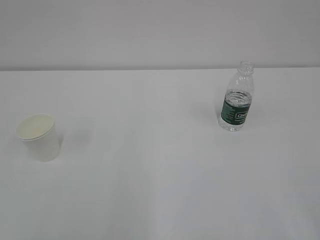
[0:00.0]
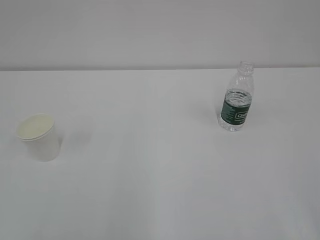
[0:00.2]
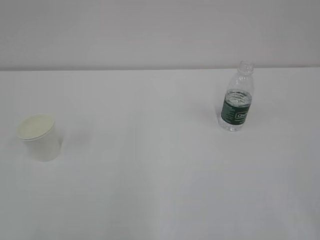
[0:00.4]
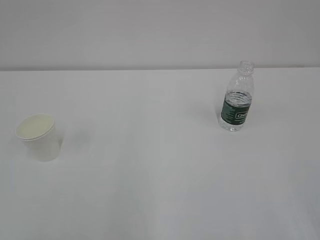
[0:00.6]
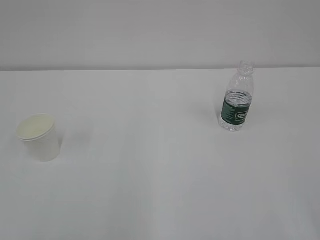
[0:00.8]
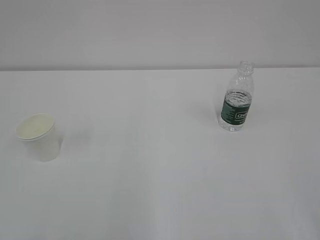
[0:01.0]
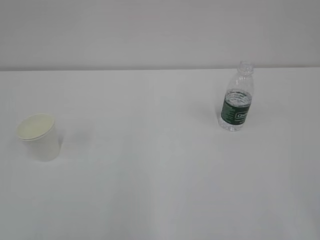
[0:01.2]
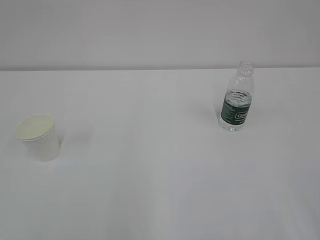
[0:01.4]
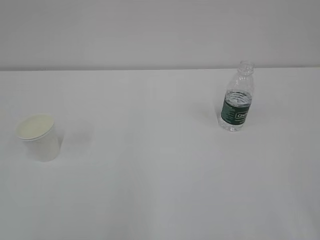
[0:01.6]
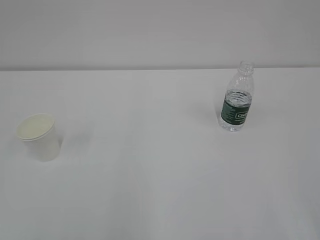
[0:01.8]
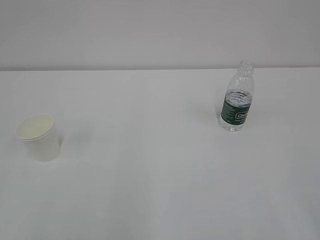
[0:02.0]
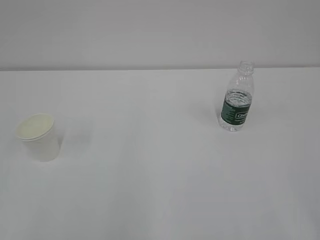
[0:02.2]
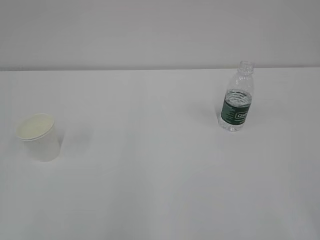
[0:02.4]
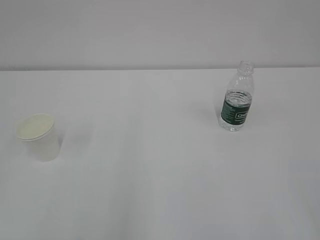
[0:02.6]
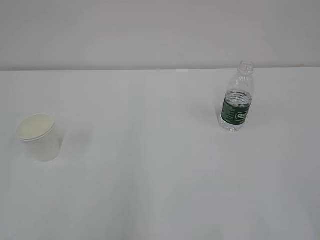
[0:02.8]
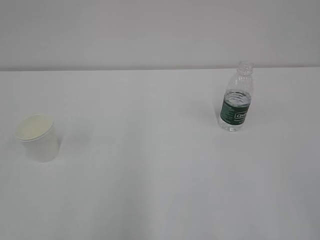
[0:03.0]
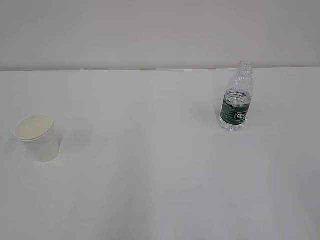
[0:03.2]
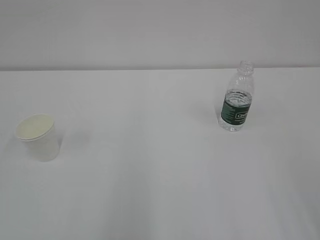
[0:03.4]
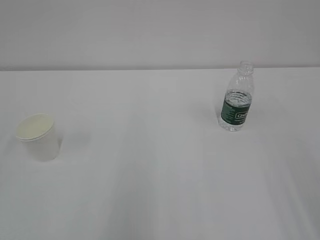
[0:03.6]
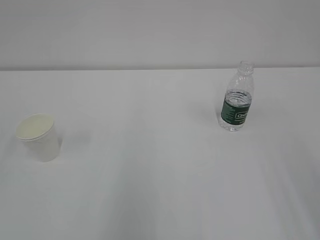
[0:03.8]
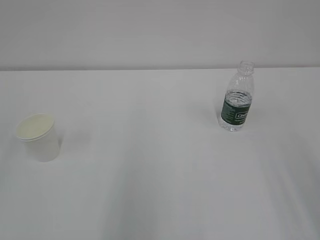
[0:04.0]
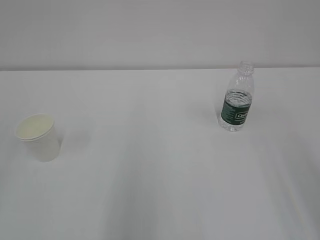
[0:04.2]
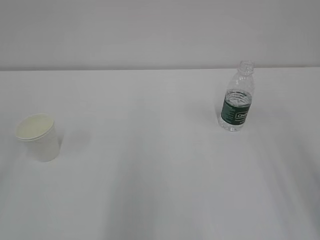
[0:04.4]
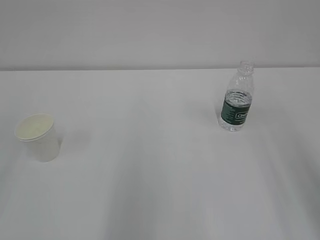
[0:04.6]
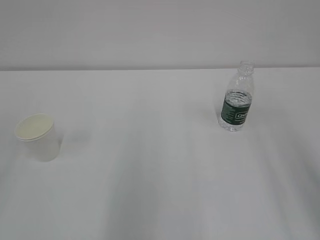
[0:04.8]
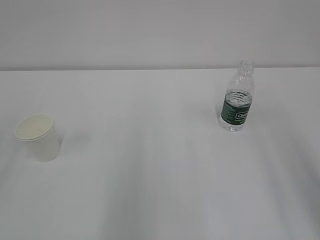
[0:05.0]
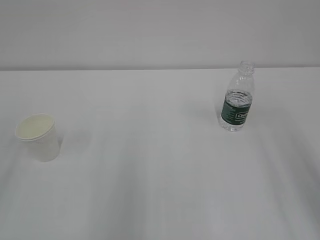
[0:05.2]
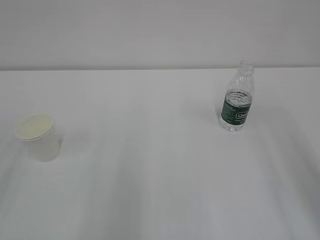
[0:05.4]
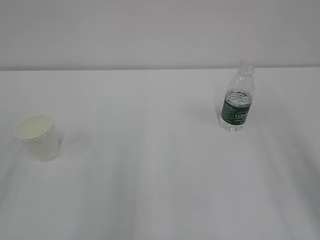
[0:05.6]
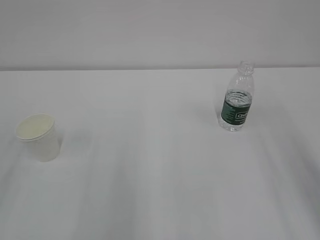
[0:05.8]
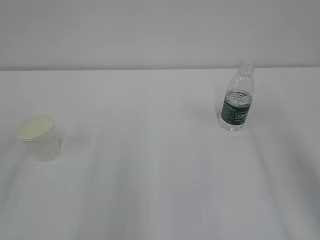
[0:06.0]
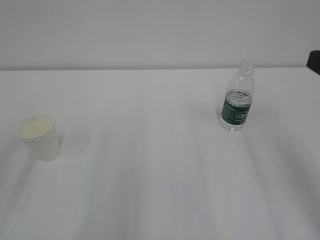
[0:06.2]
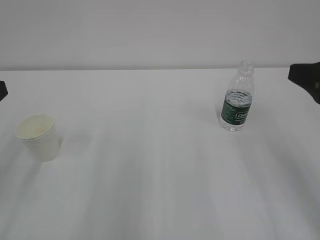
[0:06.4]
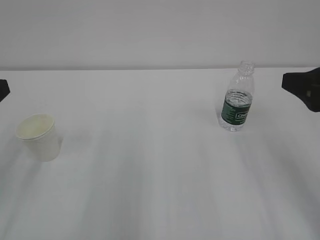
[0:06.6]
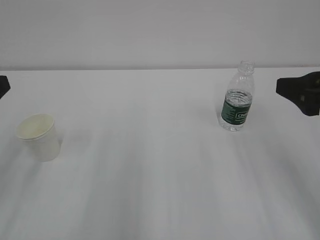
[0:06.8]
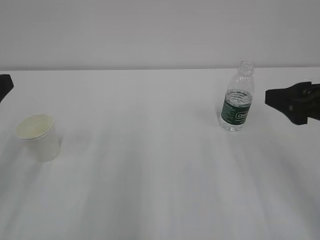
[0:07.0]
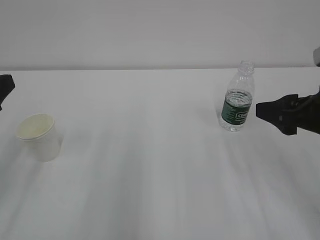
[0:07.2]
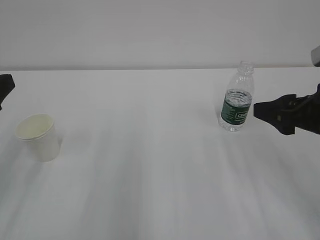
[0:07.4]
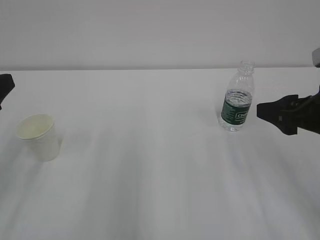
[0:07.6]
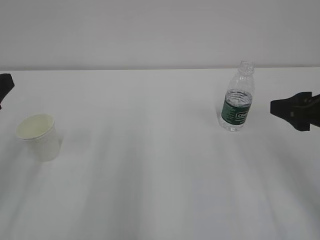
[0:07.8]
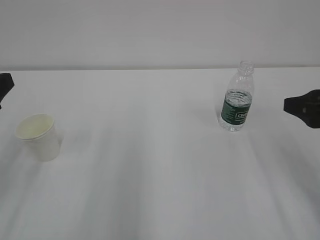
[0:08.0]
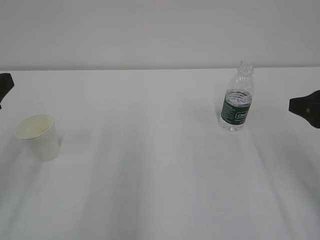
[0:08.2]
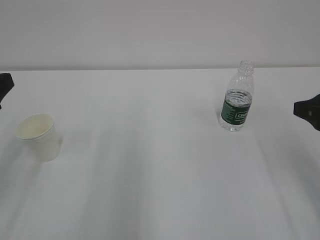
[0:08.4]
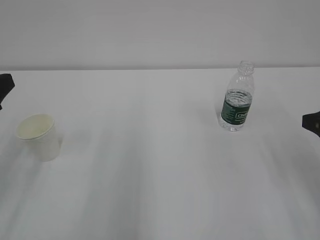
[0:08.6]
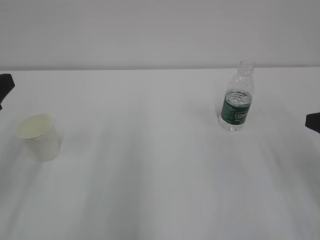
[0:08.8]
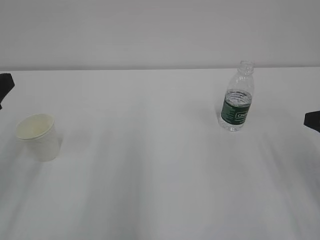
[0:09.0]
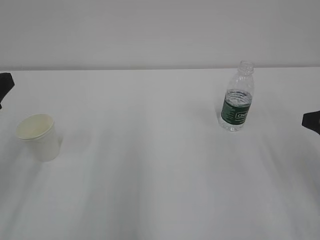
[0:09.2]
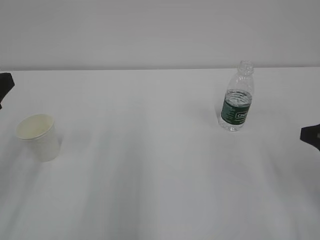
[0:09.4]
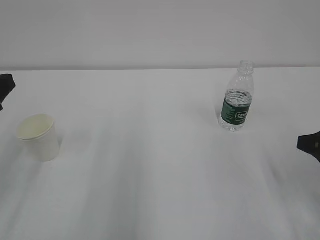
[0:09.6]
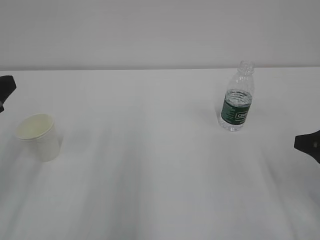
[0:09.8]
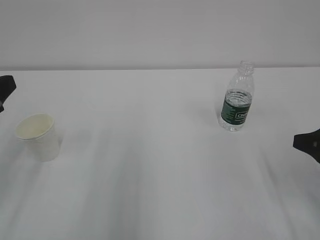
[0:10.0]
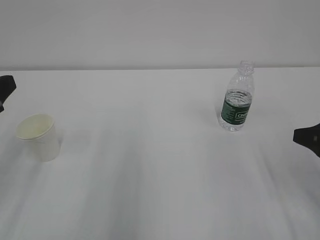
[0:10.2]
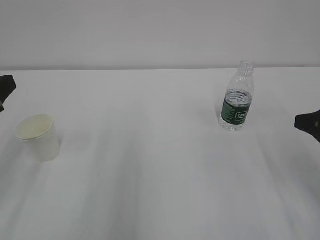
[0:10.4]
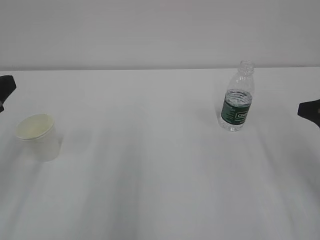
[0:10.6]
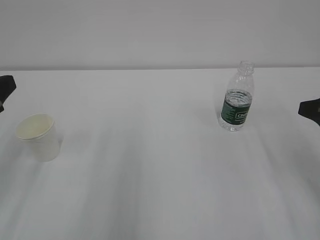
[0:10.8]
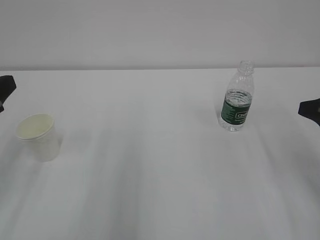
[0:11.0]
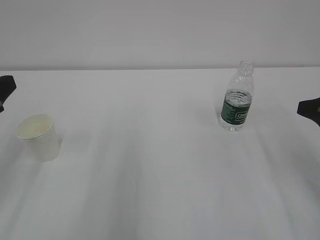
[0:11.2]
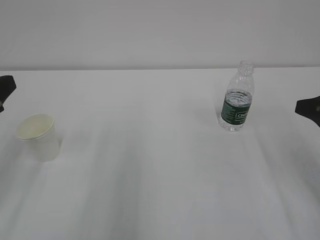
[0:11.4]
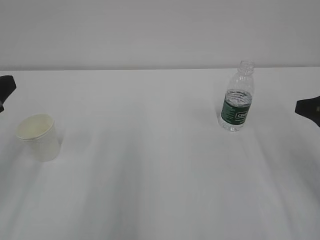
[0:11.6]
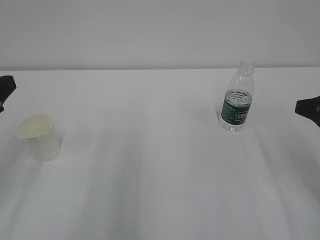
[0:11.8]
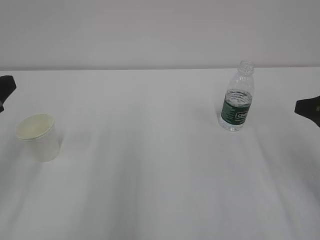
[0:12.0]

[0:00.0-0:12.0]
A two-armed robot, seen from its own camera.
0:06.0 to 0:07.6: The right gripper goes roughly 10 cm downward and forward.
0:07.6 to 0:09.0: The right gripper moves to the right, some 5 cm.
0:10.4 to 0:12.0: The grippers make only small movements.

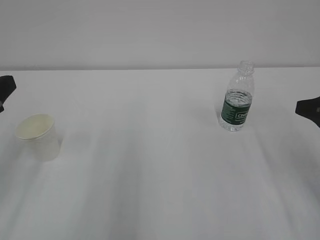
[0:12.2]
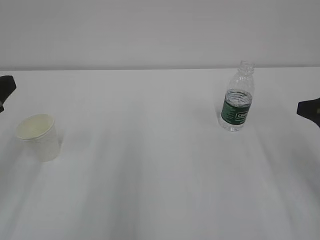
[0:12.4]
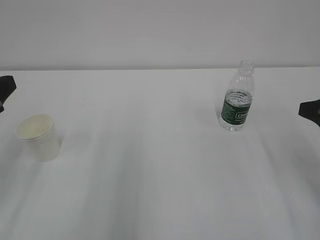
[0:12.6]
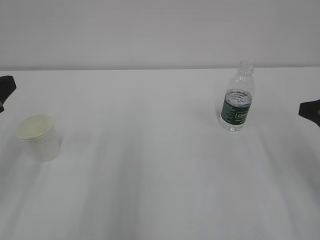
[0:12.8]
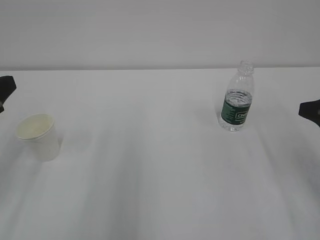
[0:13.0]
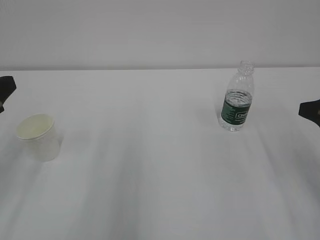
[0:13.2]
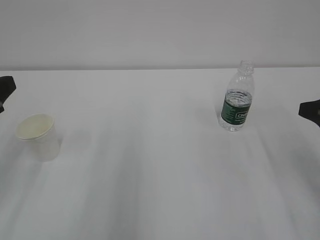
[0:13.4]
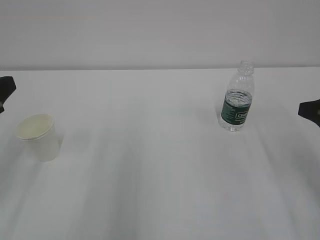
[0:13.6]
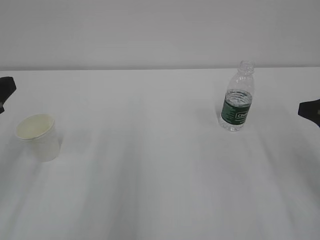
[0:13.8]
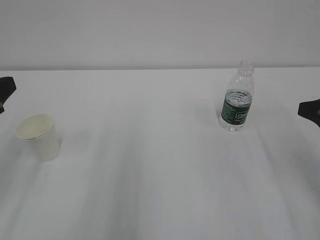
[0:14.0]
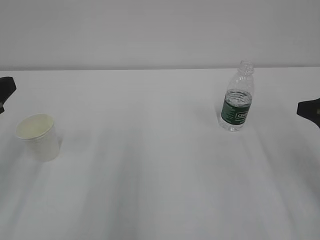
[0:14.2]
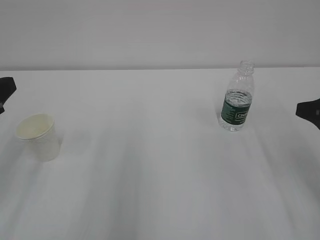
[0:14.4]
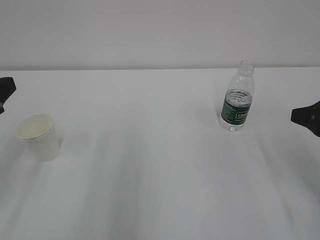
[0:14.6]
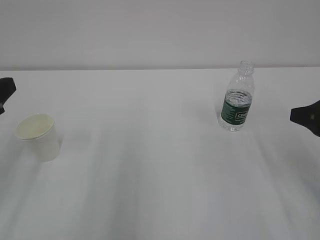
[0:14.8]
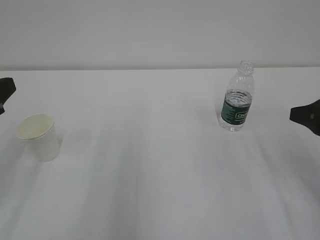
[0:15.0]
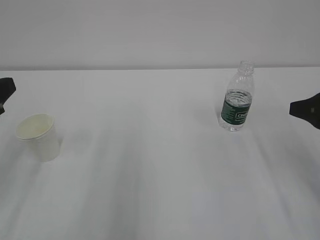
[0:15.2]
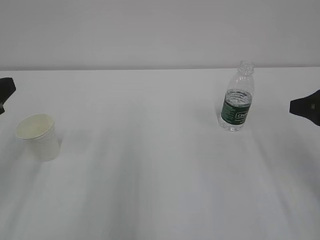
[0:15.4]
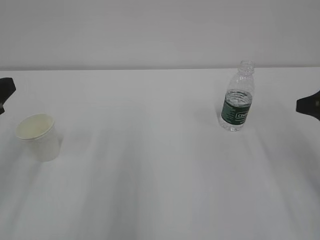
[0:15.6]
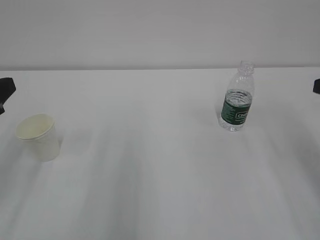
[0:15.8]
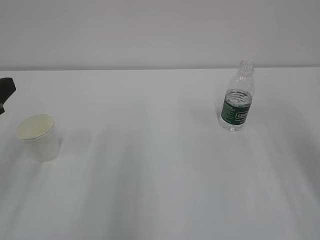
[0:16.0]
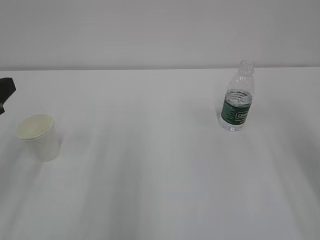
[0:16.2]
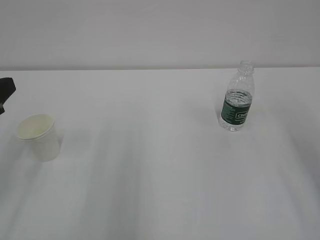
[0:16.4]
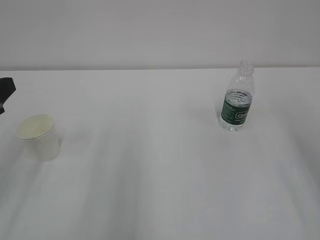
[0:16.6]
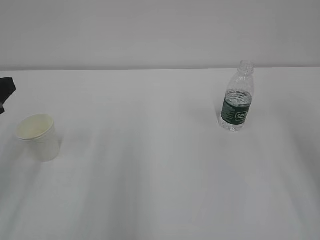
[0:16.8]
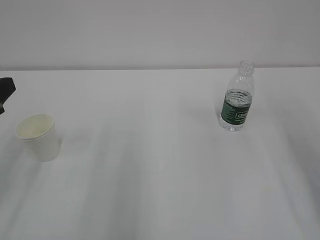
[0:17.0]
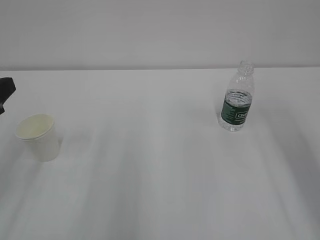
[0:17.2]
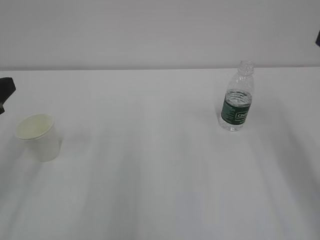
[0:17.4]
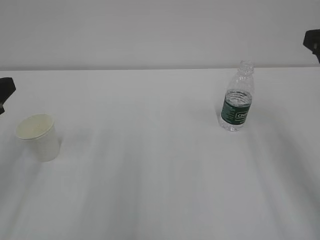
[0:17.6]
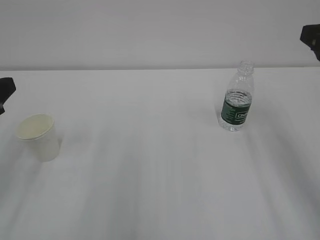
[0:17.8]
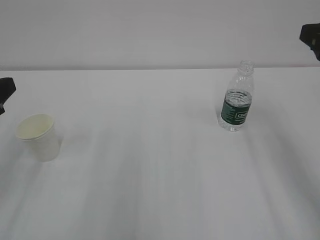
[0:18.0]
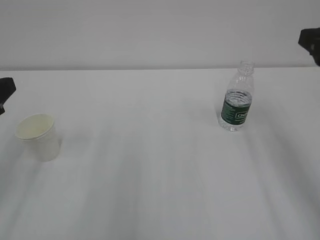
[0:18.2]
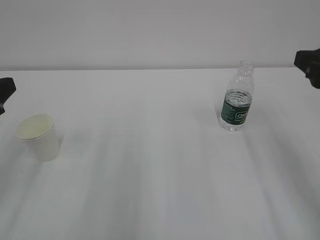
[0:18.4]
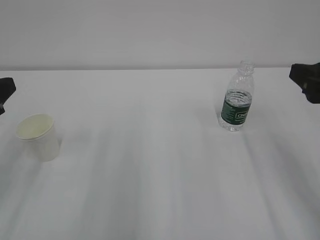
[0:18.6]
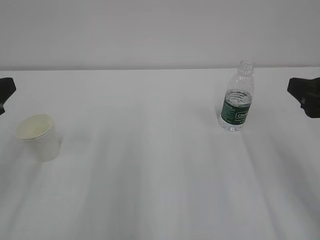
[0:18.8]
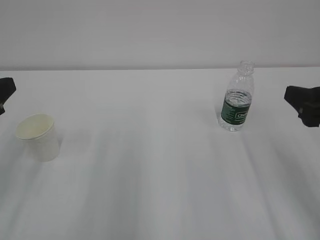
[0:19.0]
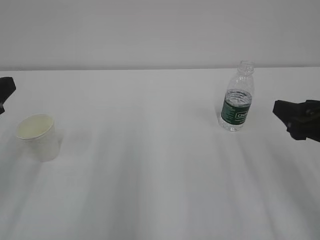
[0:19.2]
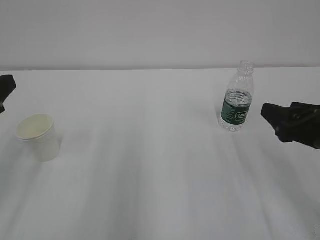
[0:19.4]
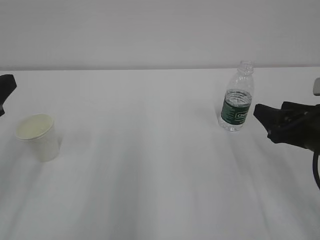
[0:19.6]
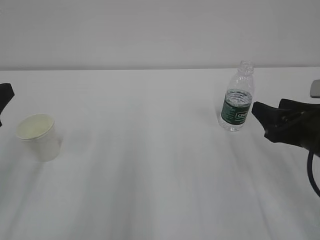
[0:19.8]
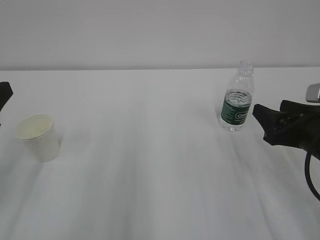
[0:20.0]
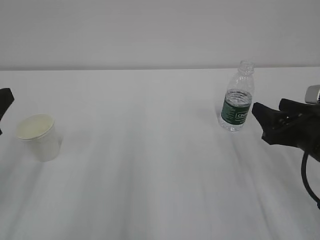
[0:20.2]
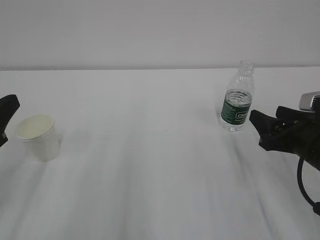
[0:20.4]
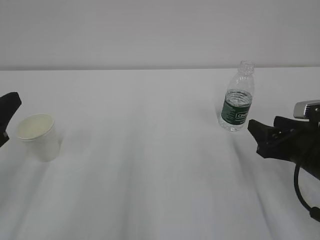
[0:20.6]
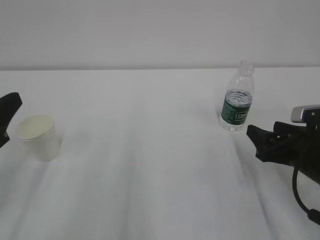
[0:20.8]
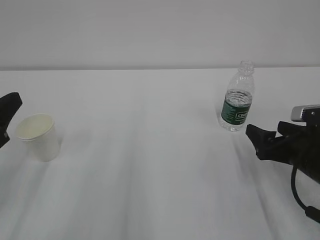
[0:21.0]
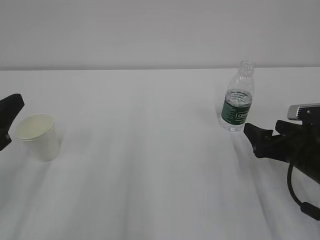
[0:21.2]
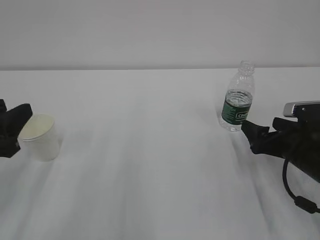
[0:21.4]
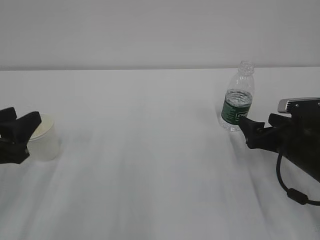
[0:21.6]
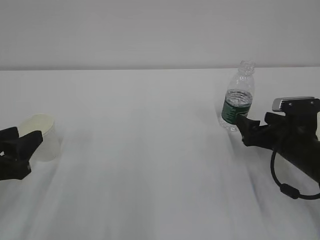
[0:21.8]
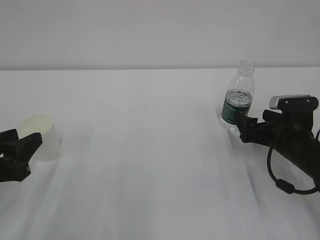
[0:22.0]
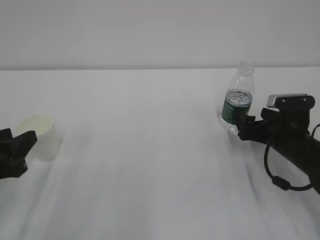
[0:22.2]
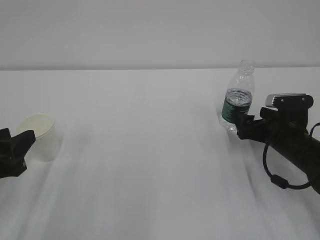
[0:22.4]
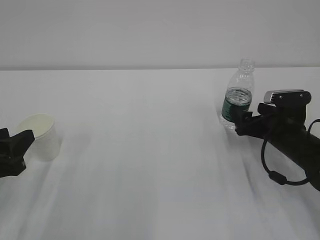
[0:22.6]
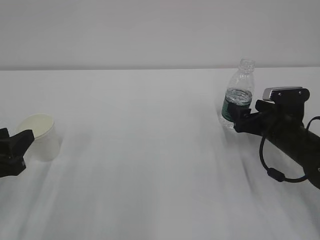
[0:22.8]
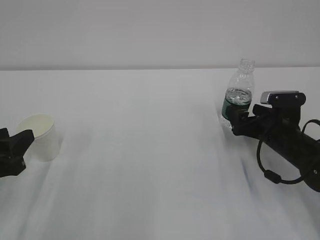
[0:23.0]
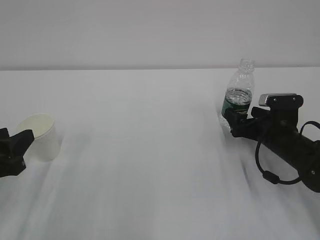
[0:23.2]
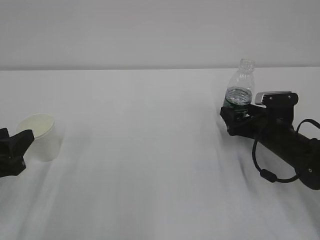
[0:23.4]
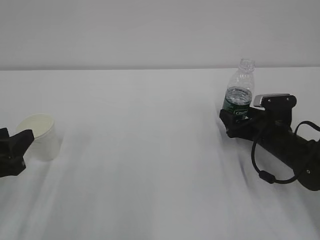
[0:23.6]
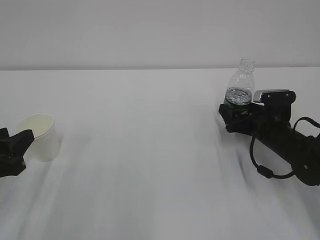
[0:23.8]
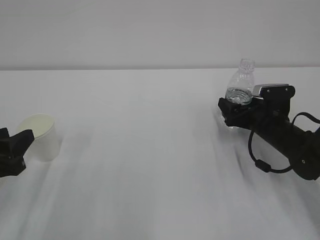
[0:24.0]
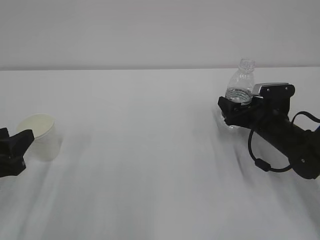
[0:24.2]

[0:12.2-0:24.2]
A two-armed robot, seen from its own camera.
0:12.2 to 0:15.2: The two grippers keep their place.
0:15.2 to 0:16.6: The right gripper heads upward, covering roughly 5 cm.
0:16.6 to 0:18.2: The right gripper moves to the left, roughly 5 cm.
0:18.2 to 0:19.8: The right gripper travels downward by approximately 15 cm.
0:19.8 to 0:21.2: The right gripper goes approximately 5 cm downward, and opens up.
0:21.2 to 0:22.6: The left gripper is displaced downward by about 5 cm. Meanwhile the right gripper shifts about 5 cm forward.
0:22.6 to 0:24.2: The grippers move only a little.
